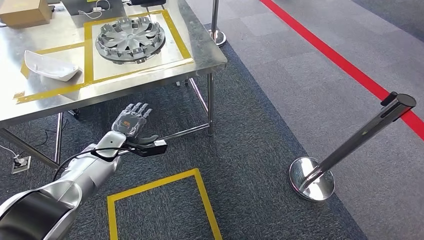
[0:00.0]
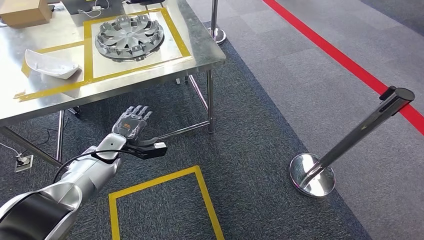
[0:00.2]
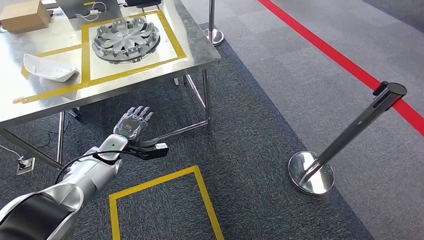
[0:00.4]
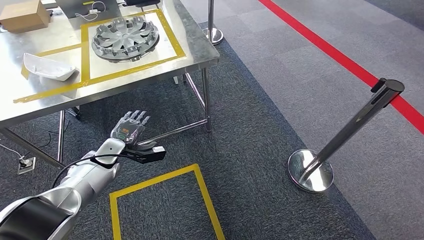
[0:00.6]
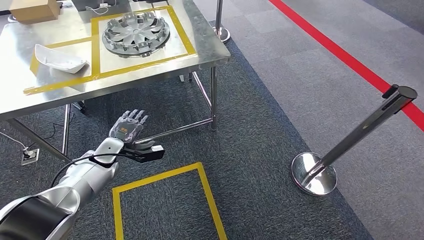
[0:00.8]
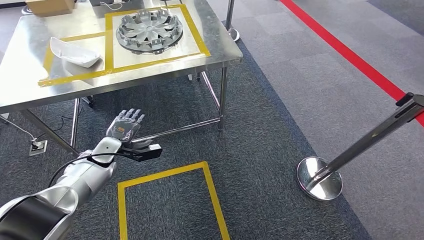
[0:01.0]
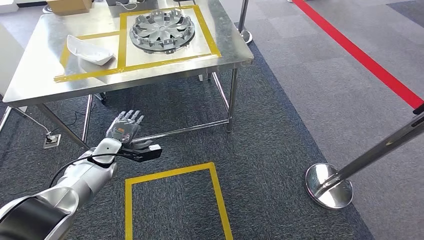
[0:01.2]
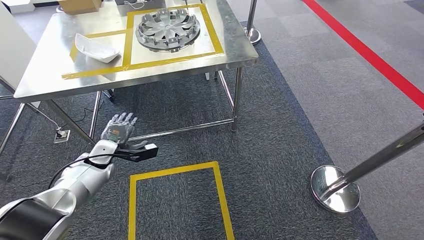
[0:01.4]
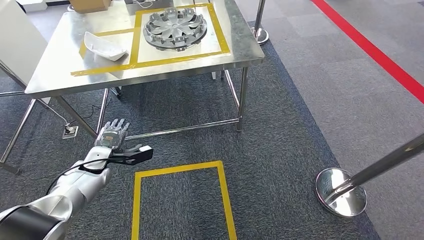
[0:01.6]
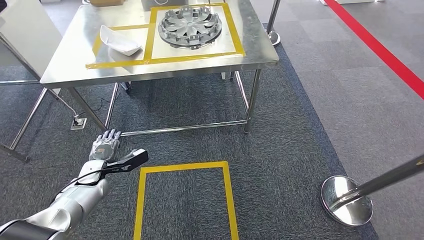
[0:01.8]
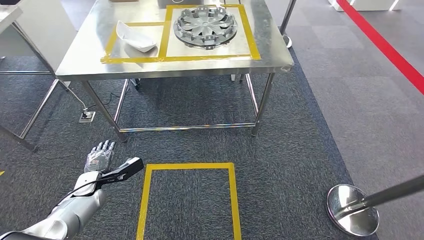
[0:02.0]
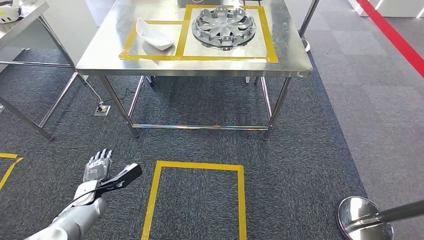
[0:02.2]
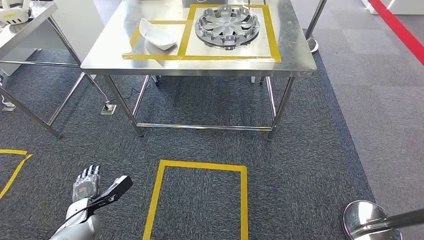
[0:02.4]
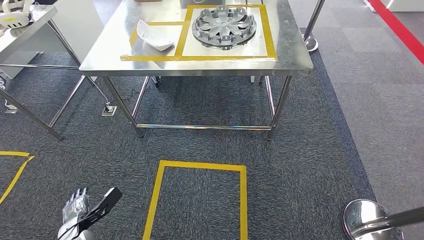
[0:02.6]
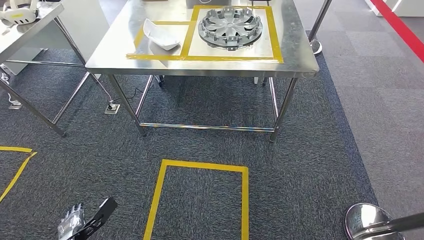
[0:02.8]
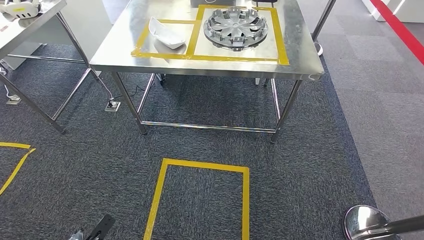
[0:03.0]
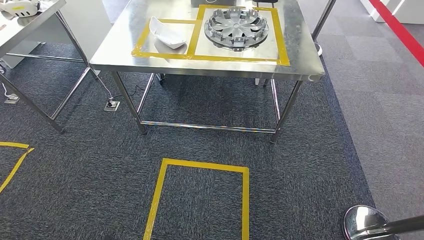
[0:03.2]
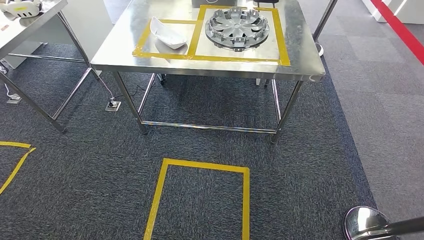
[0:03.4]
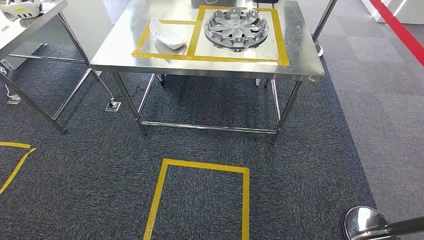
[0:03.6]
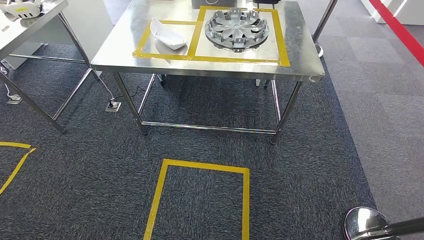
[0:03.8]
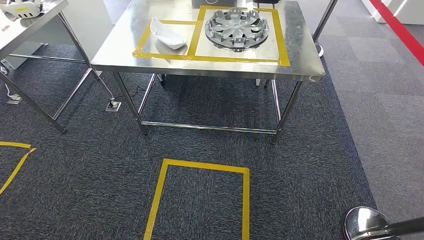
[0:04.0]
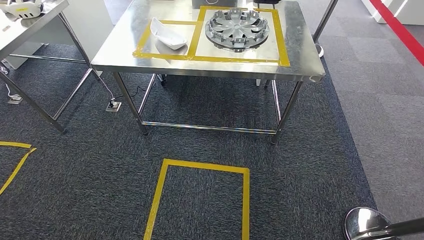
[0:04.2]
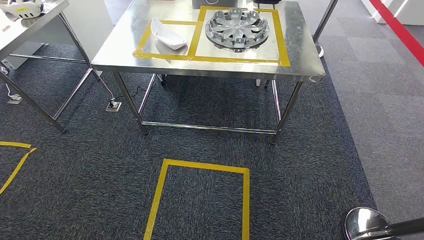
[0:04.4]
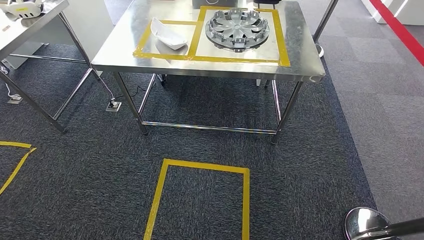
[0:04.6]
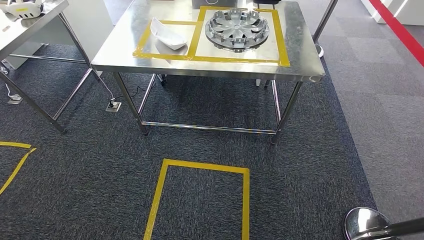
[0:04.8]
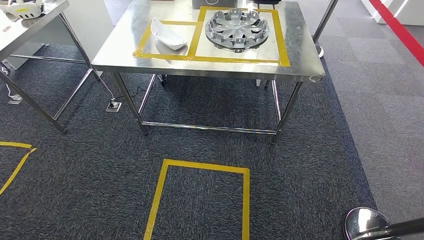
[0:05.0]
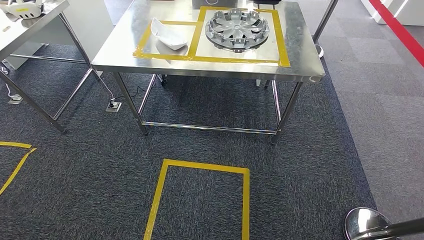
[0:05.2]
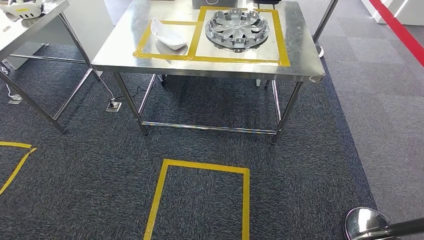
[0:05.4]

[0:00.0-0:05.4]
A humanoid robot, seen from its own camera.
Step, 0:00.0 to 0:05.4: Move to the initial position at the workbench.
0:04.0 to 0:05.4: The hands both shift backward by about 5 cm.

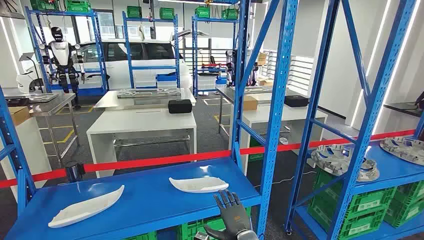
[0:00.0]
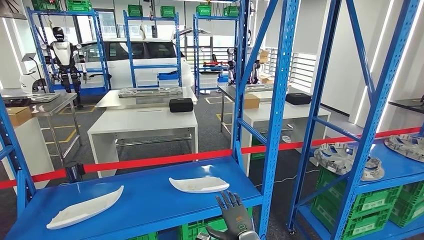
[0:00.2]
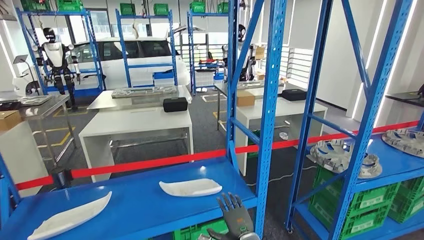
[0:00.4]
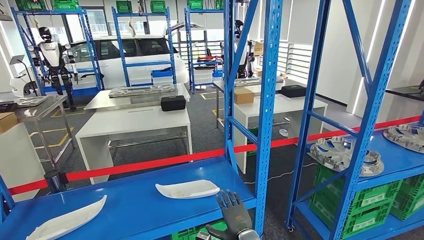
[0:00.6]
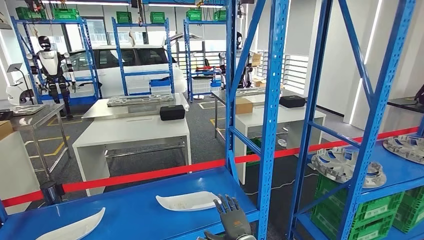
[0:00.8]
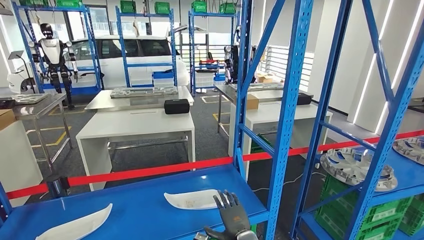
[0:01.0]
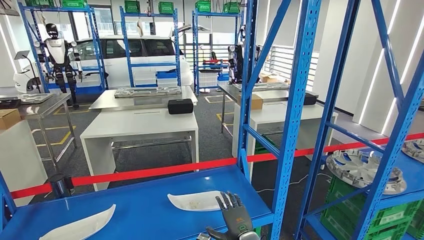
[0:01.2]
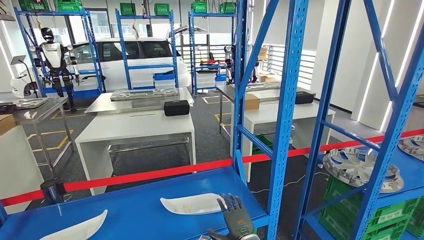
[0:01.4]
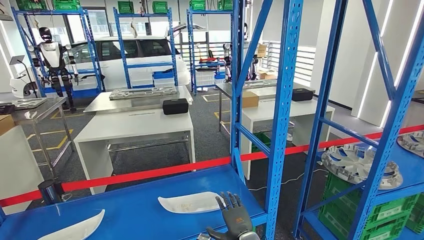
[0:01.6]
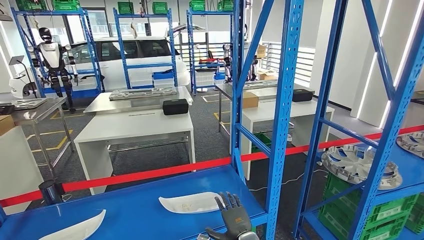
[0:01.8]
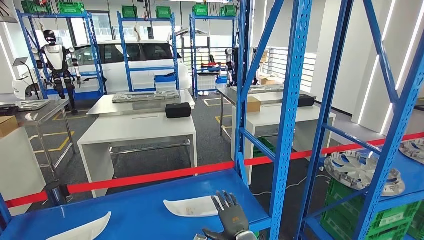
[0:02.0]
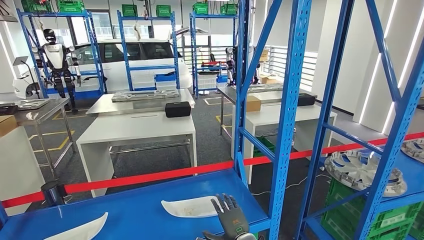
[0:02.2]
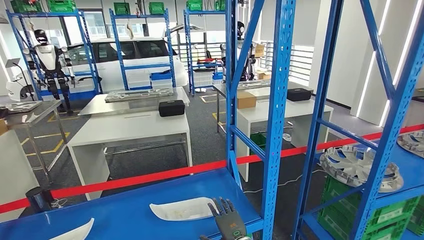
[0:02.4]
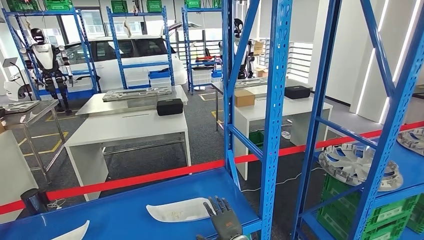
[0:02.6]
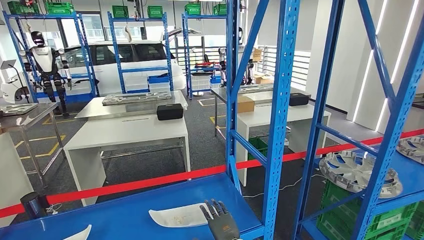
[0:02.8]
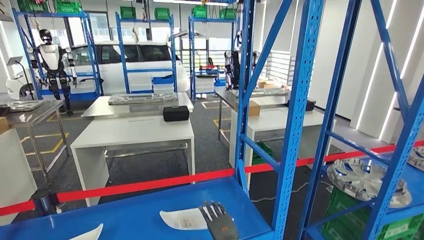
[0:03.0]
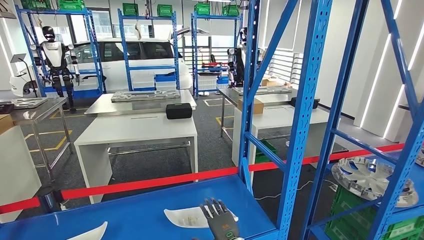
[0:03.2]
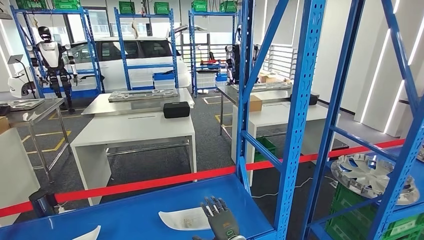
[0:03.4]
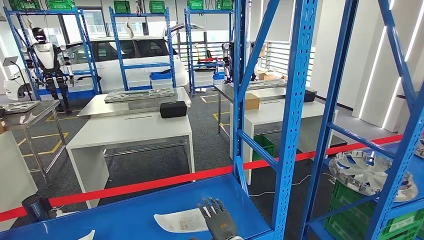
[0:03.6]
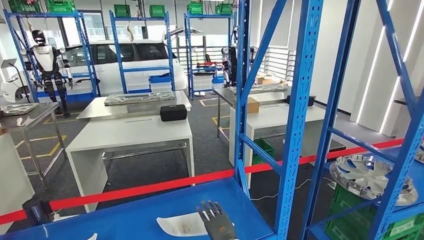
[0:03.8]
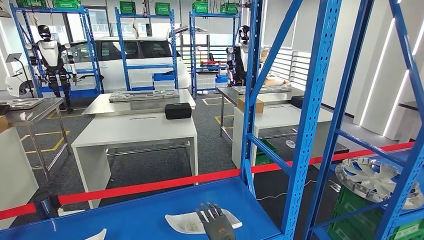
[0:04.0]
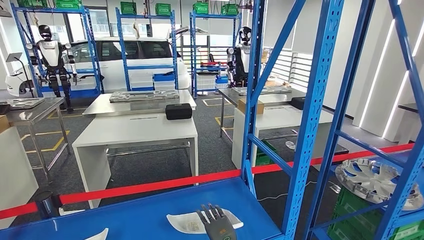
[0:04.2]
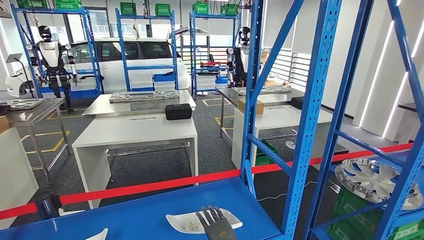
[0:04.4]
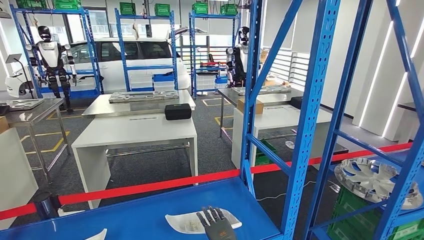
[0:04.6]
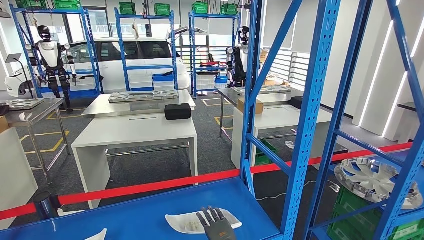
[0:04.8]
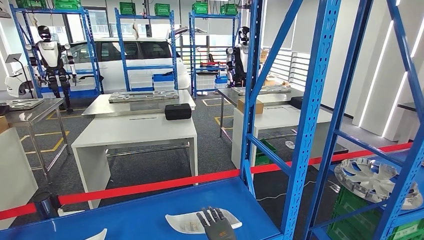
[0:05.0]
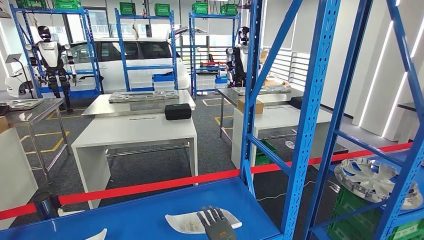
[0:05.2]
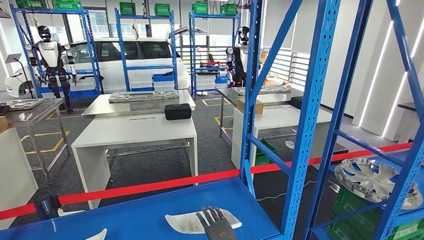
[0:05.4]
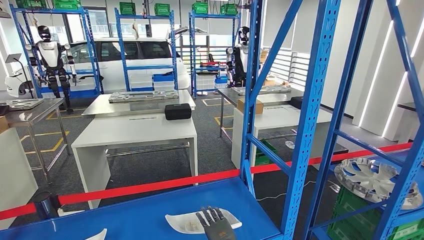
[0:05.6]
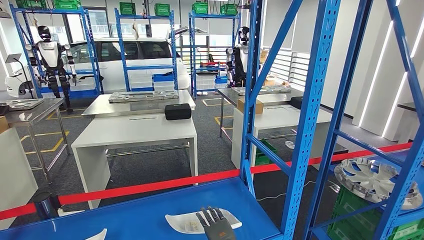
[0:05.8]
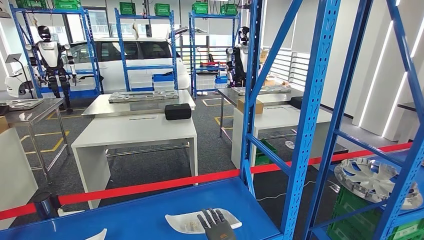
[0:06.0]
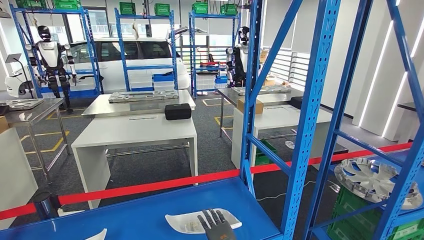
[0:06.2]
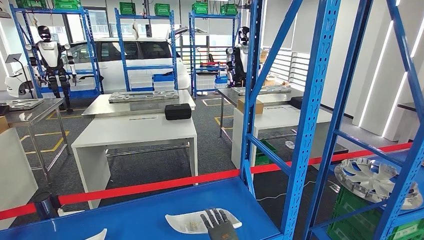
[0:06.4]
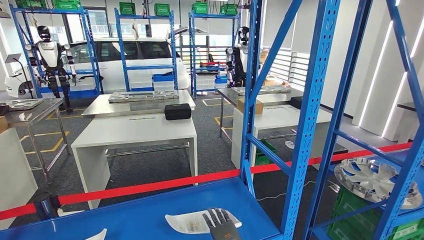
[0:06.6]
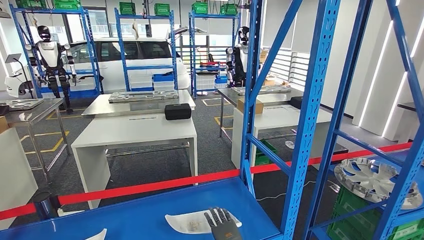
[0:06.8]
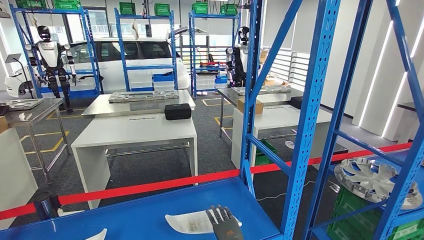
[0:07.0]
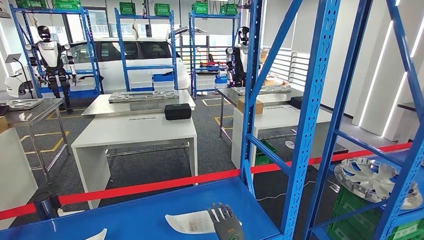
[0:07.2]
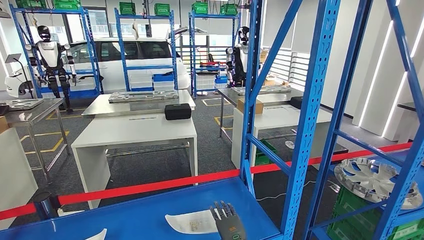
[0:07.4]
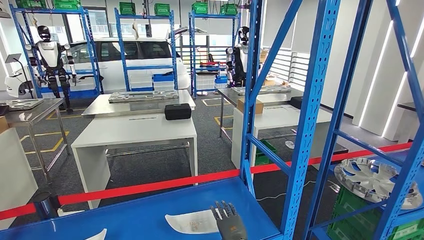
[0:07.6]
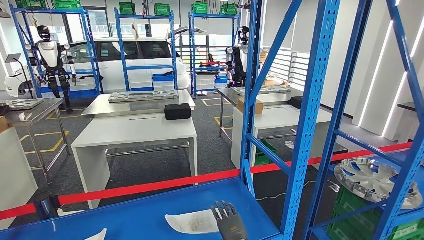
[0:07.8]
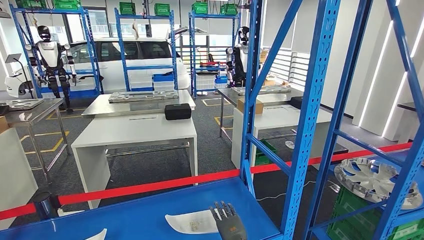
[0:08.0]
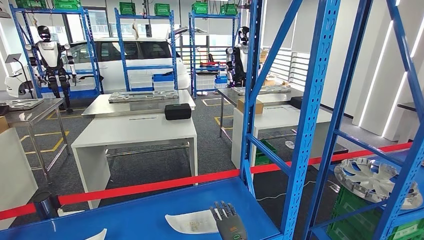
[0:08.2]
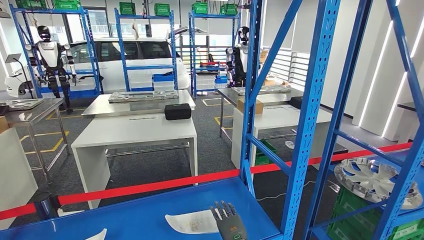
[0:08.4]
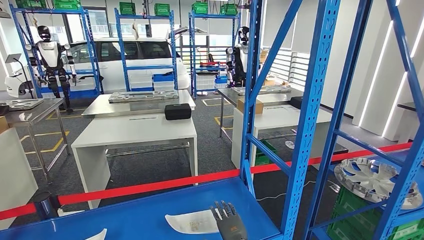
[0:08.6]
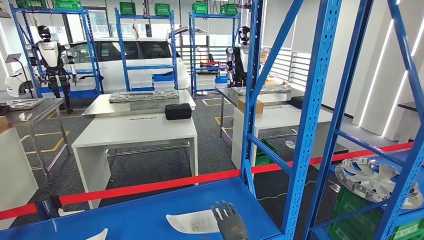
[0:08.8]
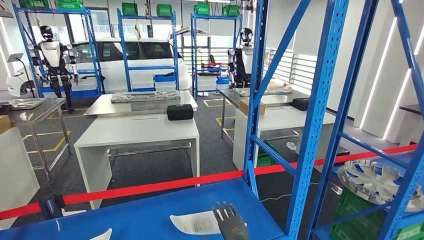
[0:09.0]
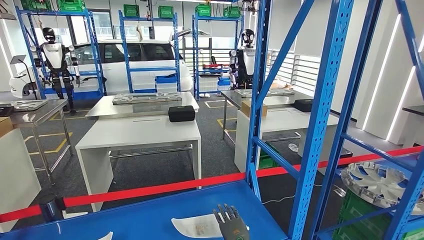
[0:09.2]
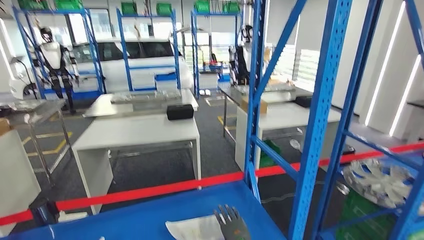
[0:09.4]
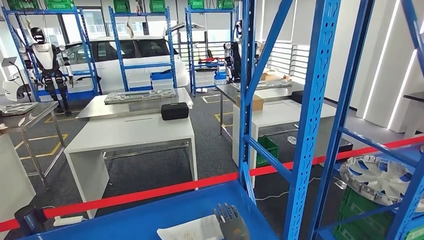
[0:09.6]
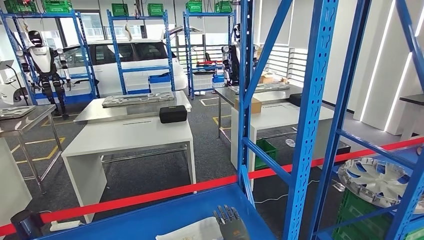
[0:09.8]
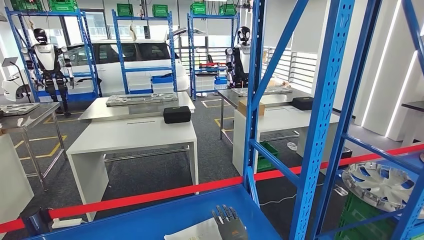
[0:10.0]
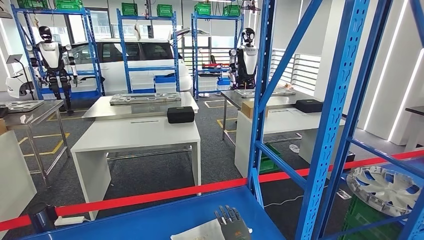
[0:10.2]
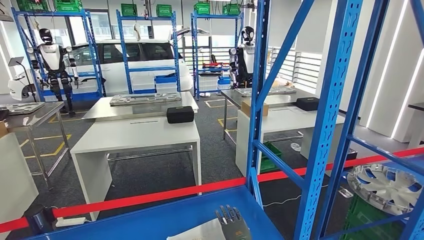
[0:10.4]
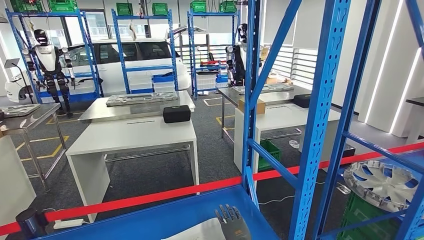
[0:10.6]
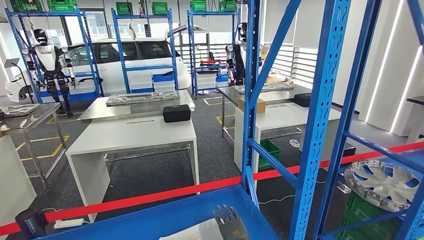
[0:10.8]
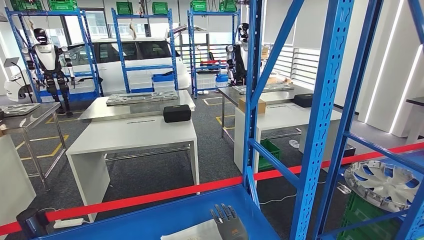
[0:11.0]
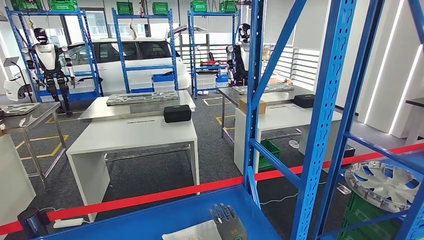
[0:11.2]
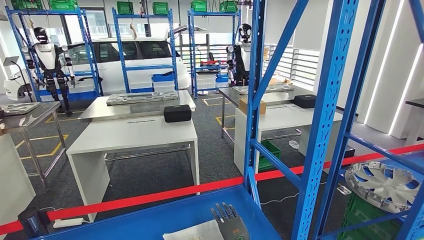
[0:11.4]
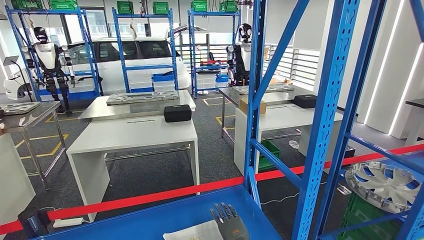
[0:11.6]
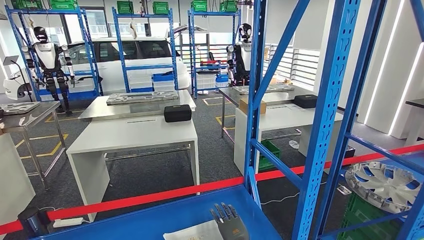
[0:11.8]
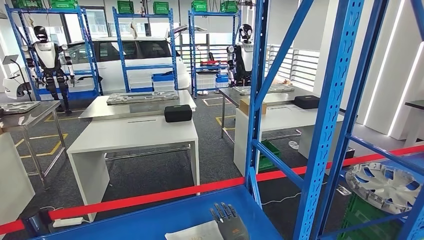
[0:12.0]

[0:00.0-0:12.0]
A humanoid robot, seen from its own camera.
0:04.4 to 0:06.0: The two hands keep their place.
